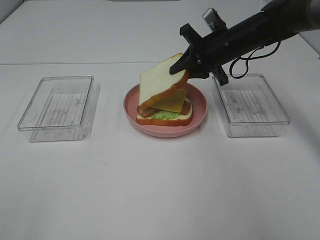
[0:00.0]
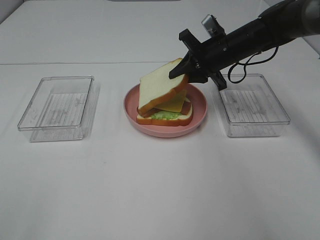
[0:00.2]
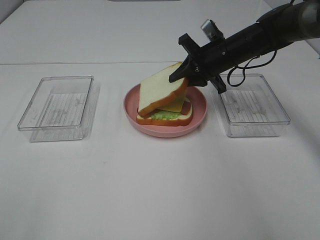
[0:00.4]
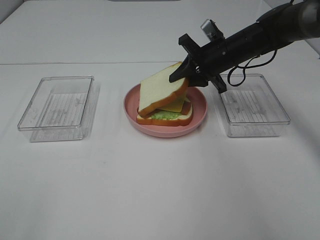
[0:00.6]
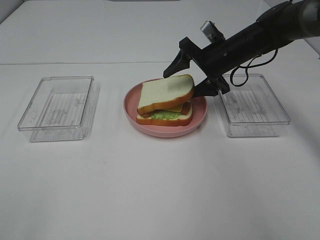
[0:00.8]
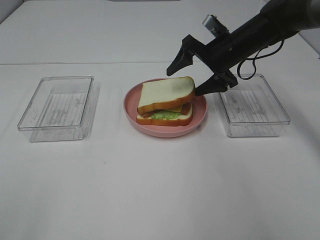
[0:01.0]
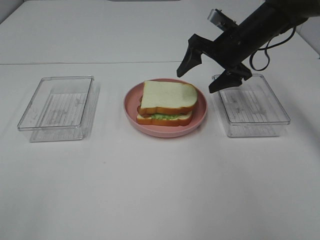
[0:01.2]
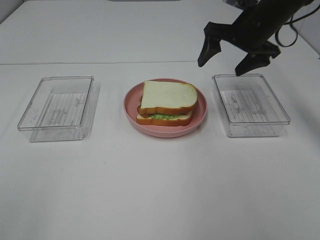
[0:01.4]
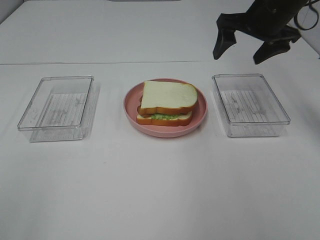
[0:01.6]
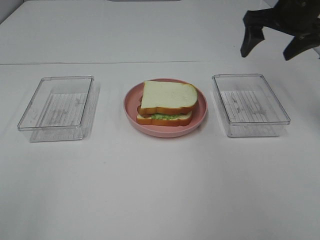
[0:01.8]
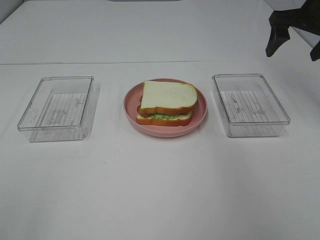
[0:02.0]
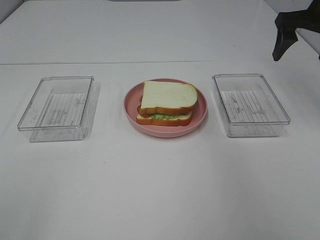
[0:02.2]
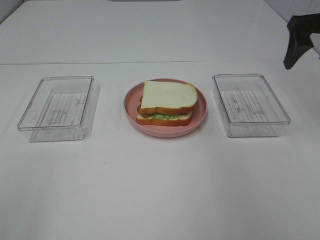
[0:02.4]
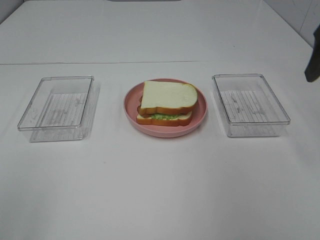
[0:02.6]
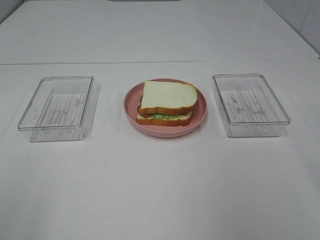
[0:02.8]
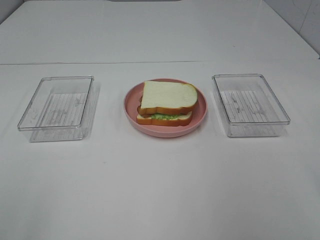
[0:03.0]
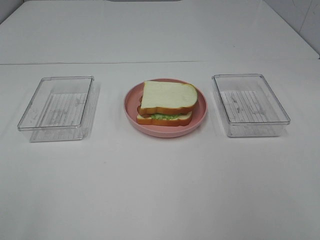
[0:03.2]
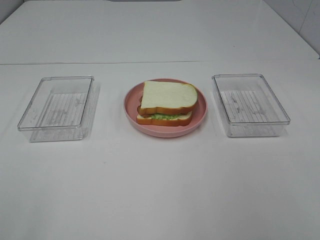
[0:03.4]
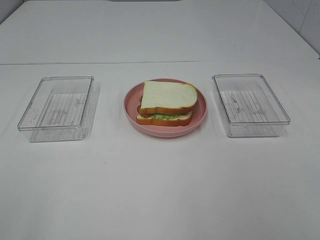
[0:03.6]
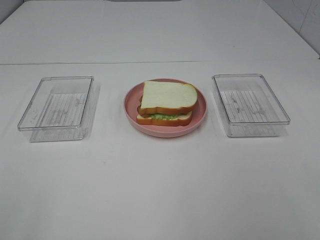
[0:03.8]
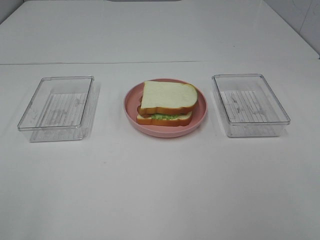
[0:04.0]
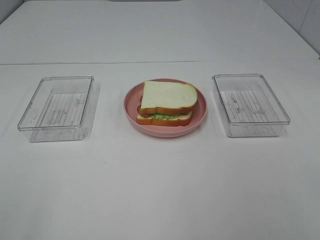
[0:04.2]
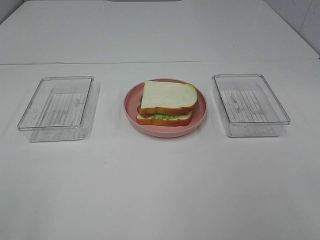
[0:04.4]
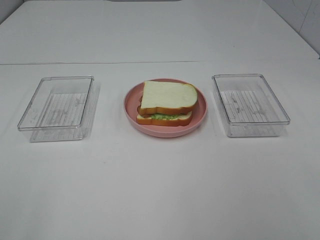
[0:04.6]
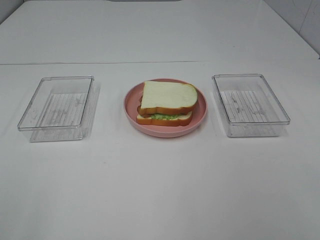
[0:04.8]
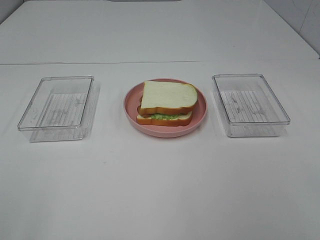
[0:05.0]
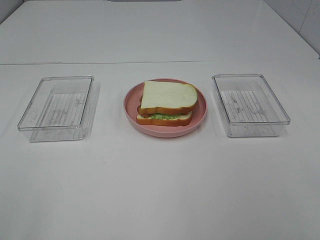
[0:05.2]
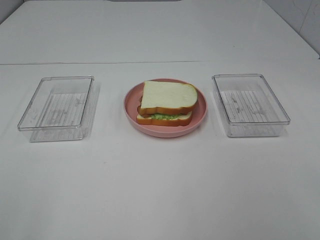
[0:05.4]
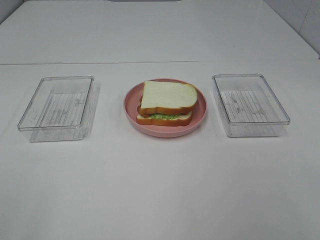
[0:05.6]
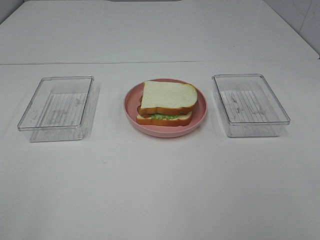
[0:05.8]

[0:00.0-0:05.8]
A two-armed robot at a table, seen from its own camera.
Task of the whole recording: Make sandwiches.
0.0 to 1.4 s: The right gripper heads upward, covering roughly 5 cm, and opens.
1.4 to 2.8 s: The right gripper goes approximately 25 cm backward and to the right.
4.4 to 5.8 s: Neither gripper changes place.

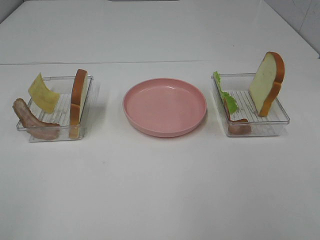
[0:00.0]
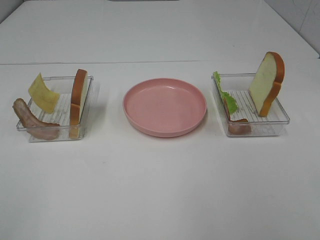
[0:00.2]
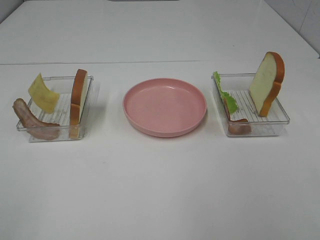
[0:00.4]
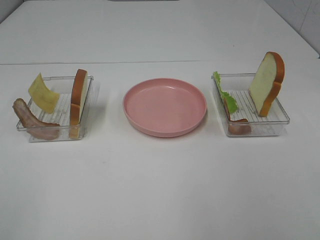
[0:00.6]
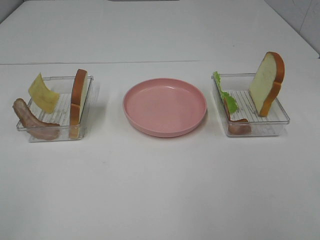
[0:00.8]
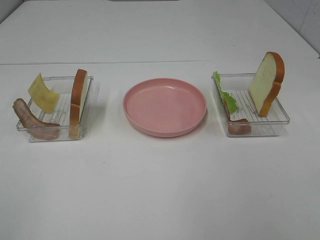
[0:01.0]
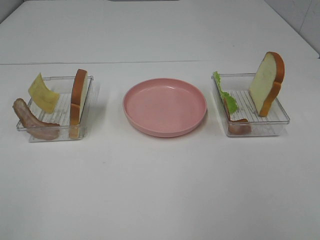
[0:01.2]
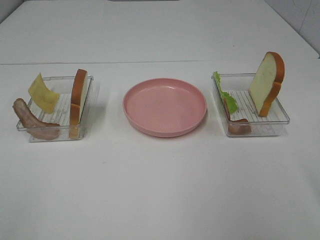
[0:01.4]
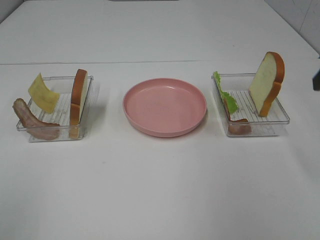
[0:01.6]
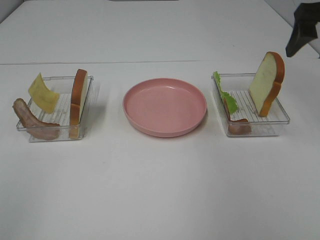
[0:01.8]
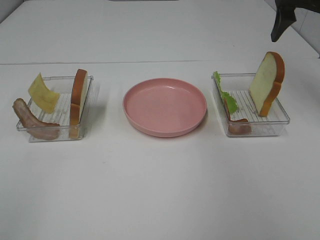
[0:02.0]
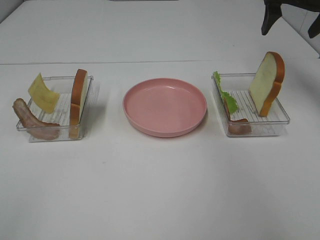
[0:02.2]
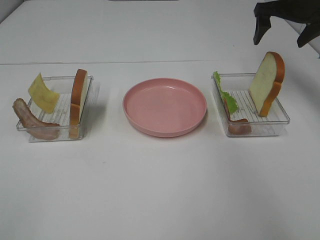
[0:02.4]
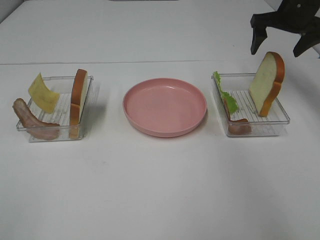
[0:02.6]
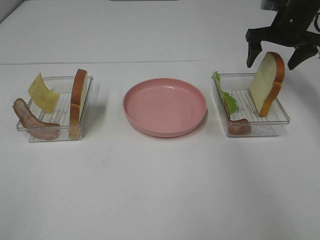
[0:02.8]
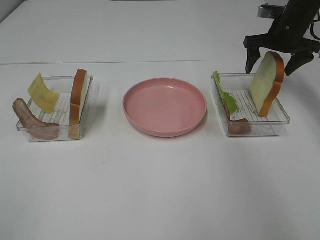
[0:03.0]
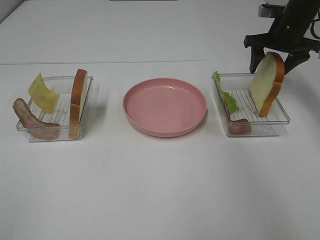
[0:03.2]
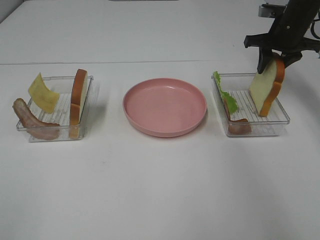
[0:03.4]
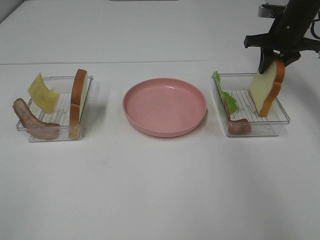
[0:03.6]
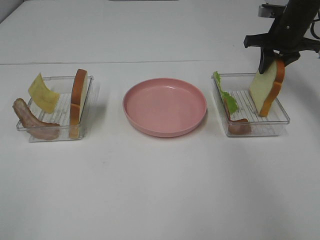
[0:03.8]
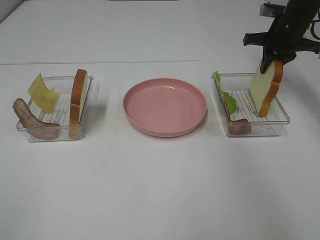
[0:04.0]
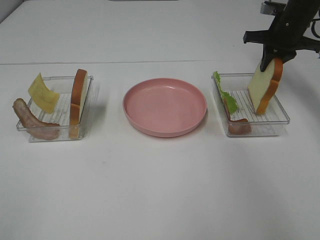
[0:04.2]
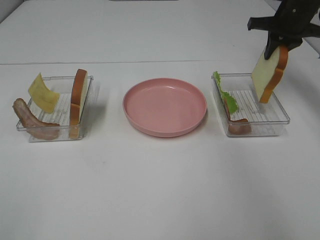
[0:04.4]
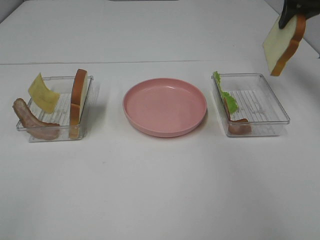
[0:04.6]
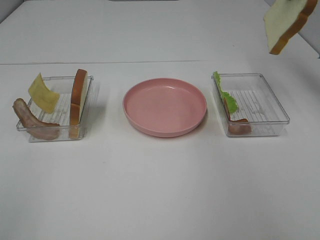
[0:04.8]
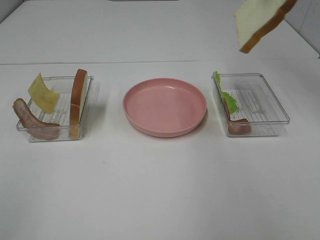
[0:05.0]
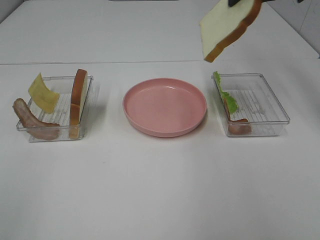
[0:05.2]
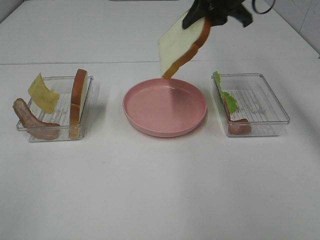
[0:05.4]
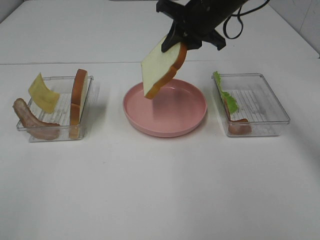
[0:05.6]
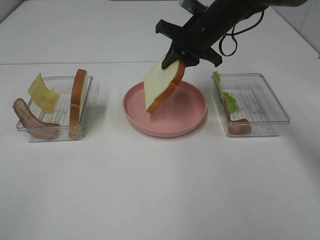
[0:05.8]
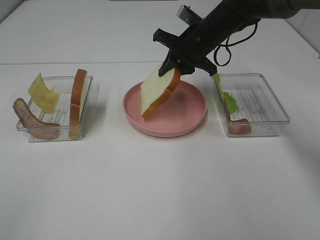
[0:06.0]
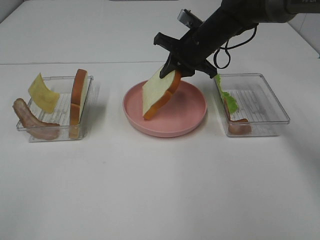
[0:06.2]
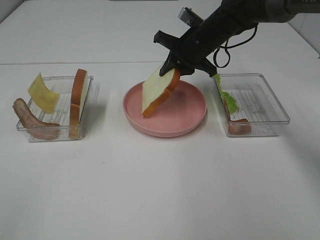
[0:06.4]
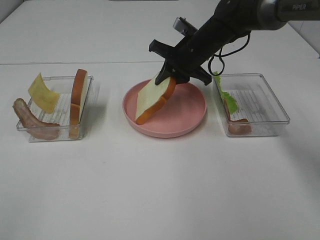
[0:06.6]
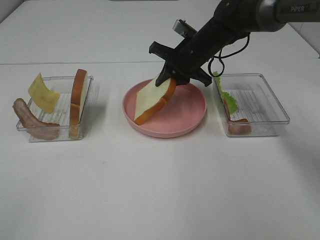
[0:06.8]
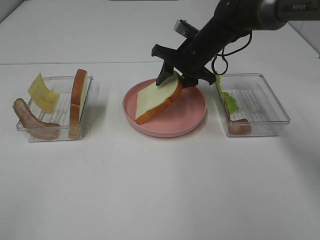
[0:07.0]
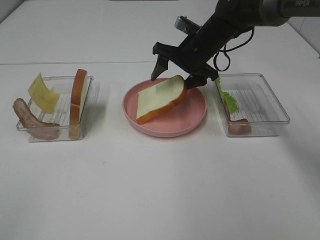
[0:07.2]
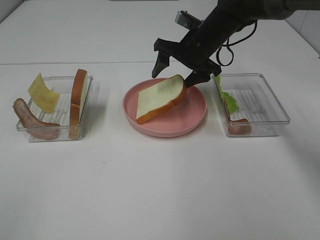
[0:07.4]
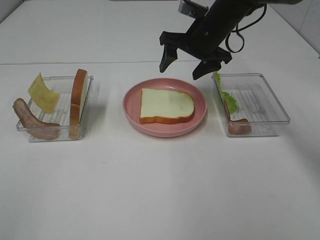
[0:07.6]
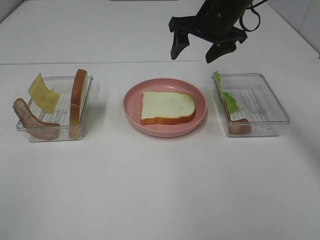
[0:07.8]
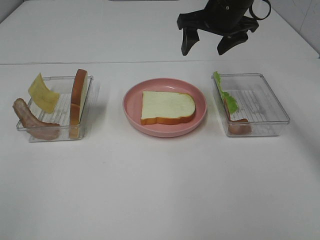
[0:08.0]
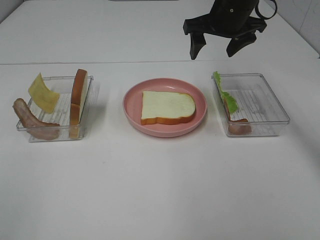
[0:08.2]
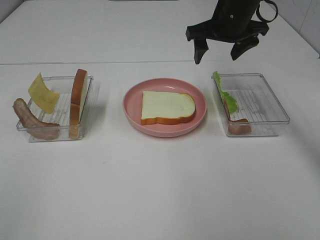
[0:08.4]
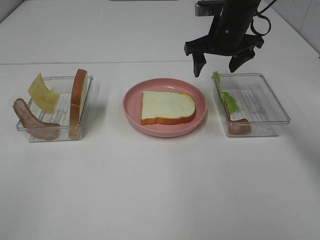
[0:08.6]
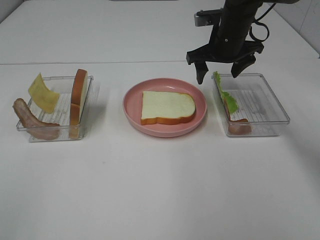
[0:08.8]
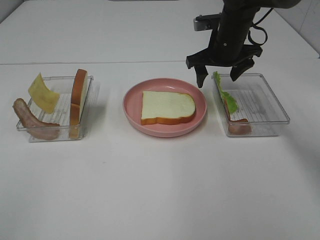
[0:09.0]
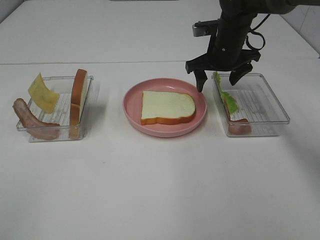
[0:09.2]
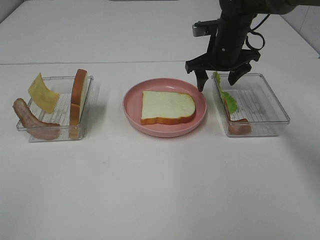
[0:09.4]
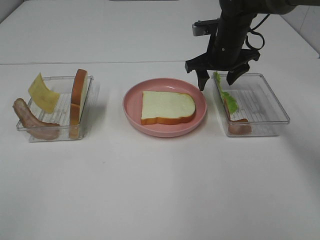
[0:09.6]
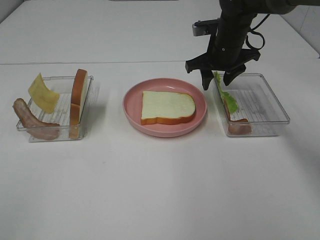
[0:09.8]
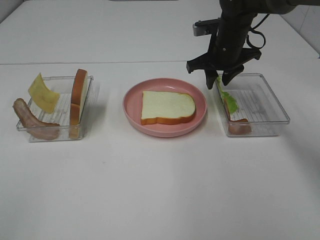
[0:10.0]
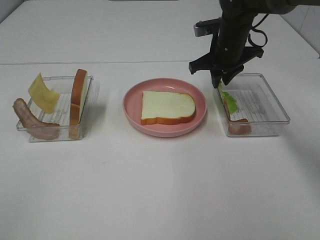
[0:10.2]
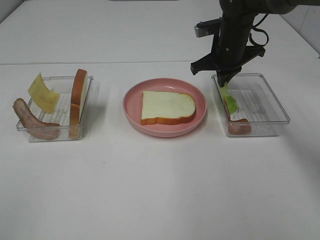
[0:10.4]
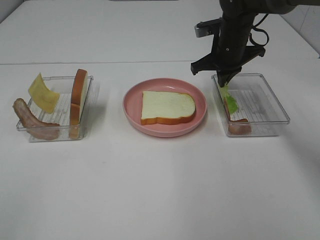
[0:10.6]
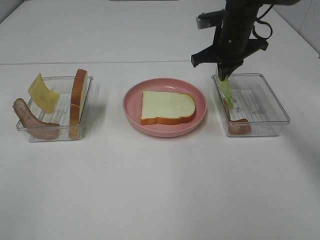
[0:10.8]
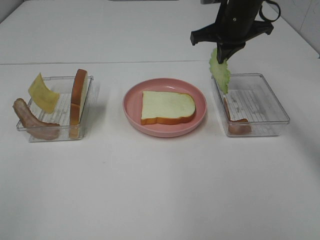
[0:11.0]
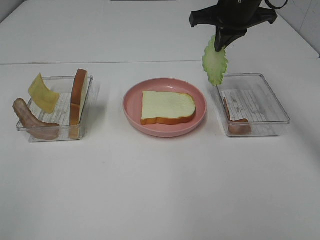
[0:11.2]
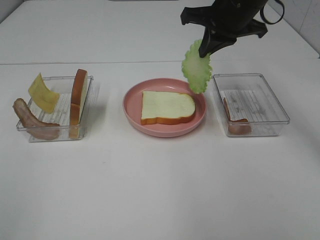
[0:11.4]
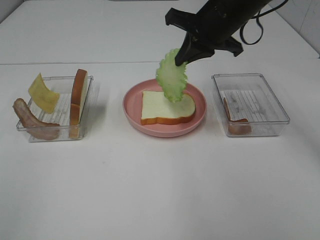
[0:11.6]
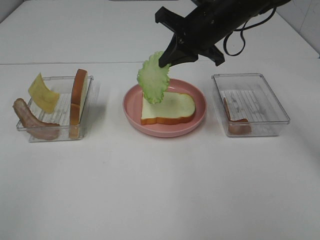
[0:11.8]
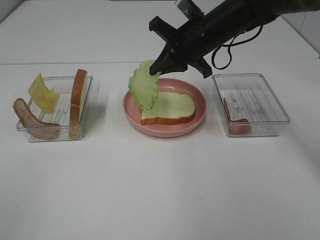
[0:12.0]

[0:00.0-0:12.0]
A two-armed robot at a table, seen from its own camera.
Task of the whole recording: Make sandwiches.
Step, 0.0 to 4.2 s: Right hand:grab the bread slice.
Step, 4.4 to 7.6 s: Right hand:place the bread slice on the plate.
Step, 7.8 to 10.6 s: Right hand:grab the lettuce slice.
1.6 to 3.0 s: The right gripper heads forward and downward, covering some 25 cm.
3.0 to 4.4 s: The right gripper closes its fingers.
4.4 to 6.0 s: The right gripper moves to the left, roughly 20 cm, and goes upward and returns, approximately 15 cm each way.
6.0 to 7.6 s: The right gripper opens its fingers.
9.0 to 10.4 s: The right gripper closes its fingers.
10.4 to 12.0 s: The right gripper travels to the left by about 5 cm, and goes upward and returns, approximately 10 cm each way.

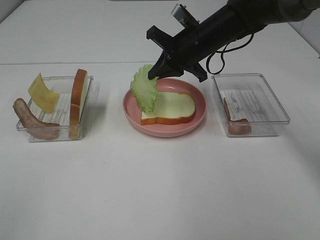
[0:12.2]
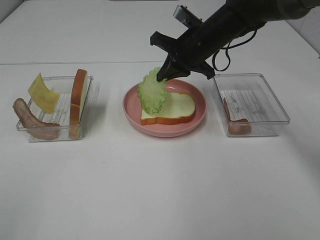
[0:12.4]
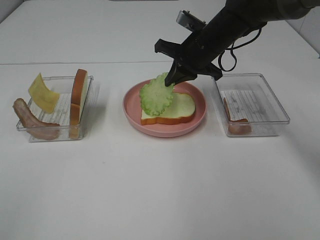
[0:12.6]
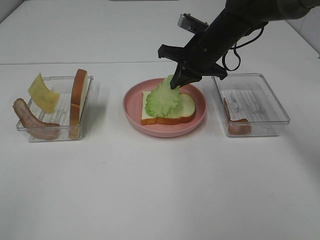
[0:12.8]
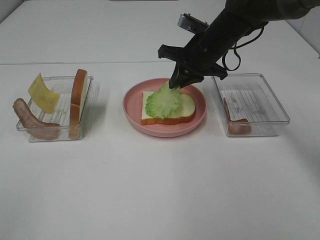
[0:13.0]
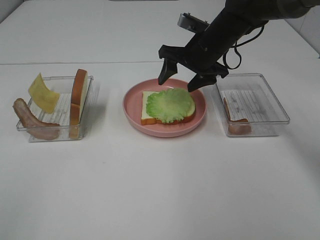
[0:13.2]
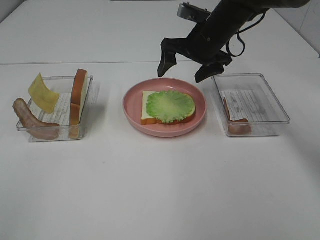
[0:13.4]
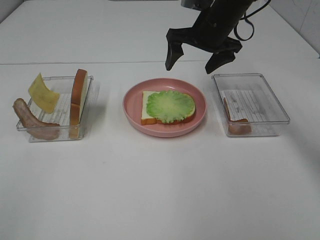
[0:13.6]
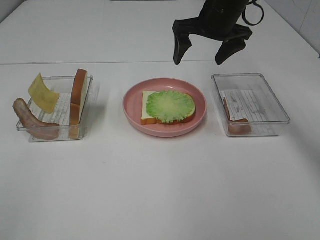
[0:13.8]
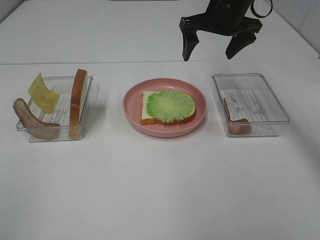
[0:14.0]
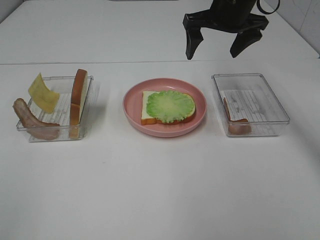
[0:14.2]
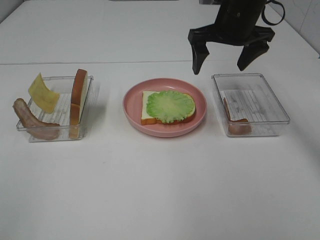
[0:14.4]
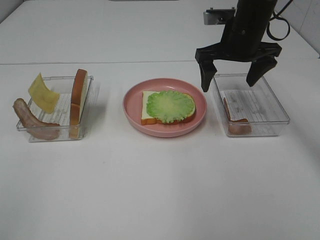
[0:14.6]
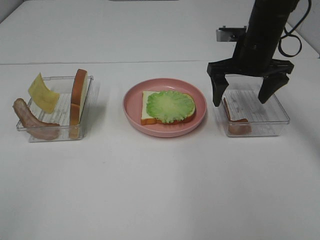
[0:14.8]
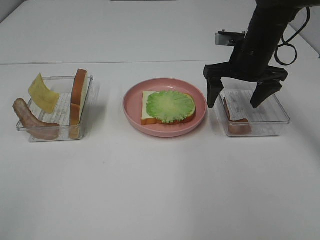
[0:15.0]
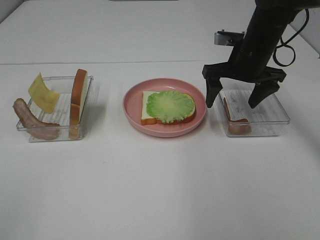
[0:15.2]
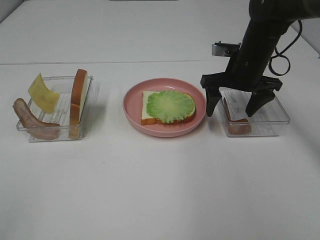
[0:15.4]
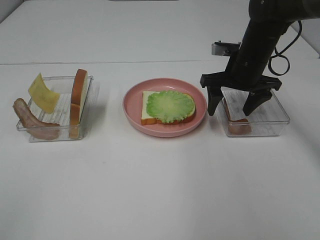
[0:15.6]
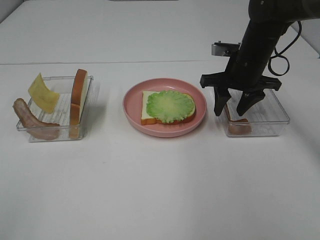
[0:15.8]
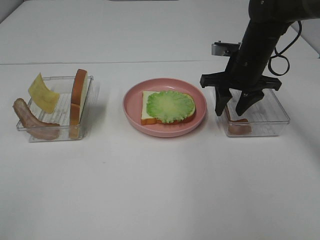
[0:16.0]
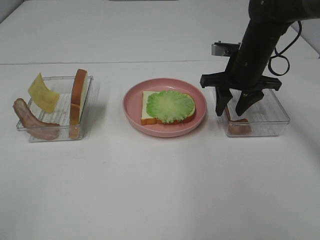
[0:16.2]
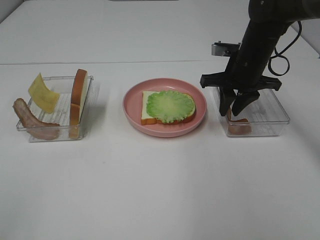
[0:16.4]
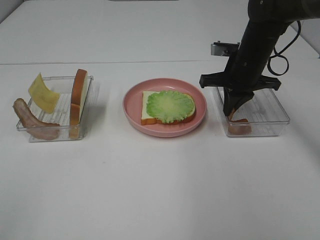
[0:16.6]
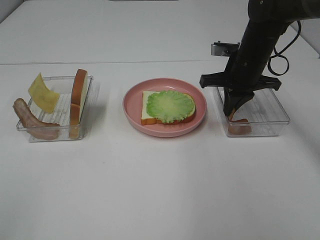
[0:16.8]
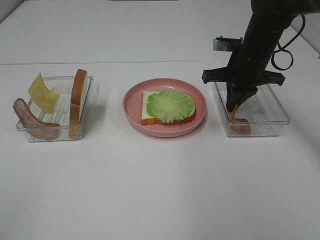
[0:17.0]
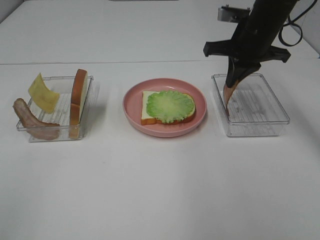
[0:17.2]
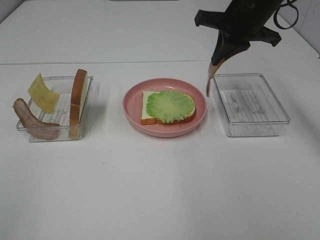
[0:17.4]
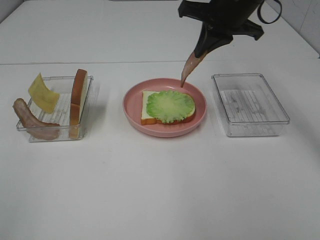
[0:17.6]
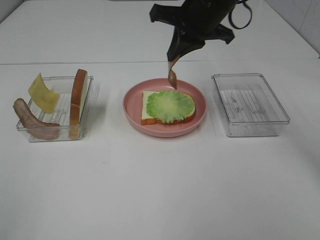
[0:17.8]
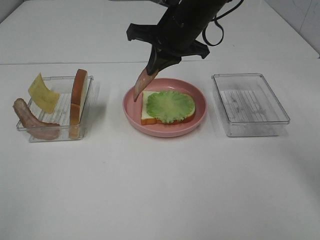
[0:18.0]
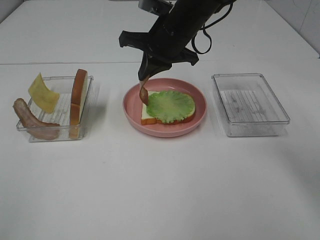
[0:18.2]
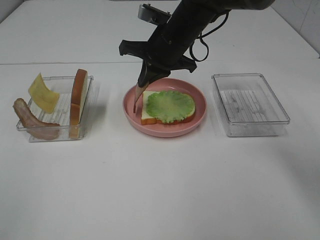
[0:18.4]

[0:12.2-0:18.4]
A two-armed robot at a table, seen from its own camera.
Task of the whole recording: Make sandwiches.
Step, 13.4 to 16.6 s: Right hand:grab the bacon.
12.2 to 13.8 s: The right gripper travels upward by about 5 cm, and opens its fingers.
13.8 to 15.4 s: The right gripper heads downward and to the right, covering some 10 cm.
15.4 to 16.8 s: The right gripper closes.
16.8 to 18.4 s: The right gripper goes approximately 15 cm to the left.
